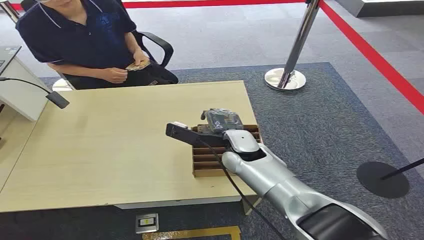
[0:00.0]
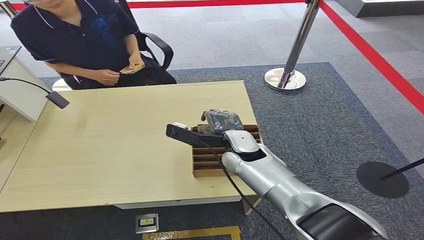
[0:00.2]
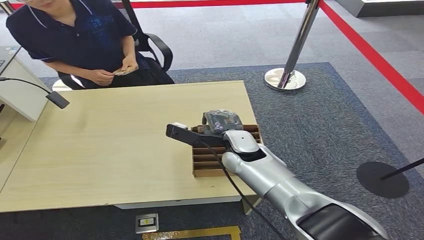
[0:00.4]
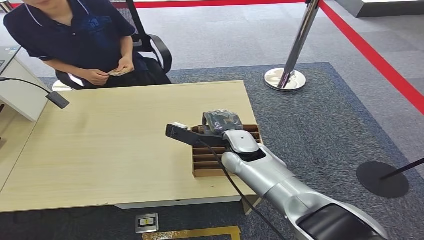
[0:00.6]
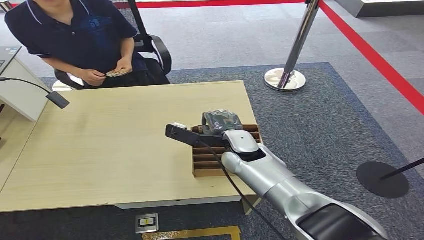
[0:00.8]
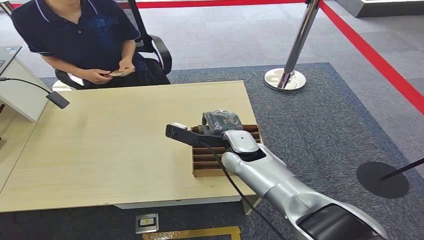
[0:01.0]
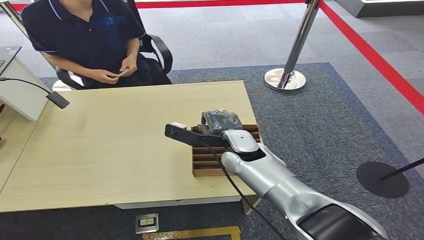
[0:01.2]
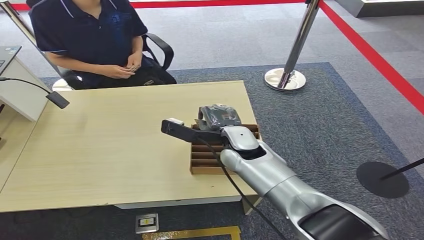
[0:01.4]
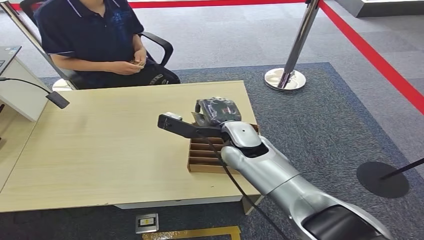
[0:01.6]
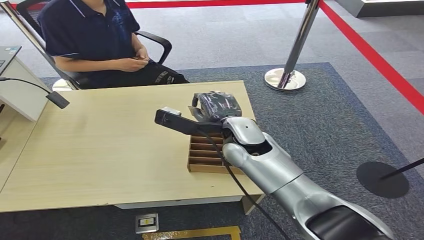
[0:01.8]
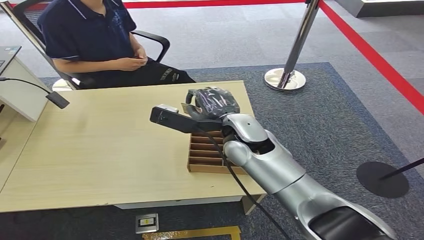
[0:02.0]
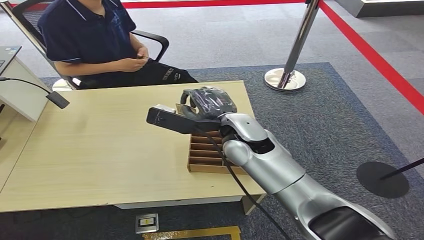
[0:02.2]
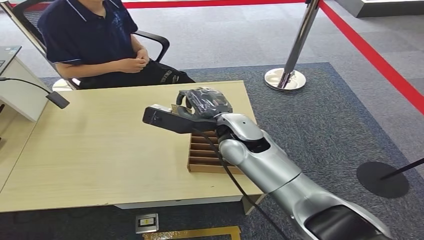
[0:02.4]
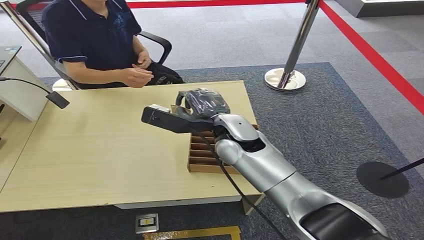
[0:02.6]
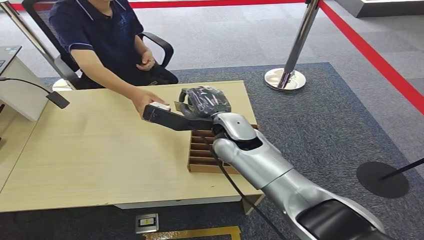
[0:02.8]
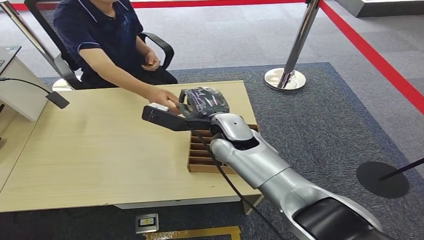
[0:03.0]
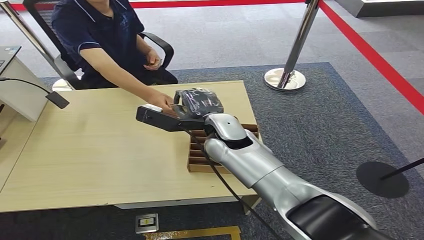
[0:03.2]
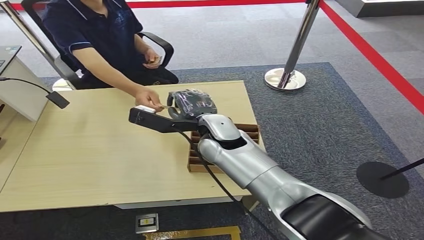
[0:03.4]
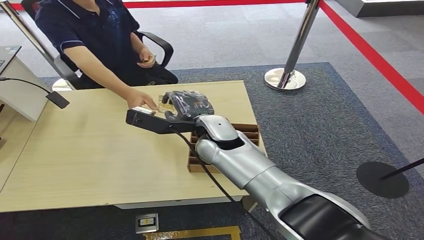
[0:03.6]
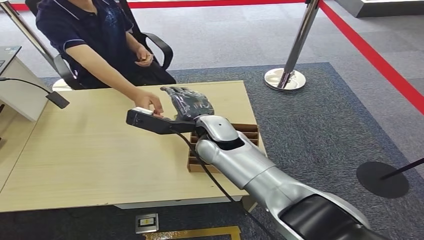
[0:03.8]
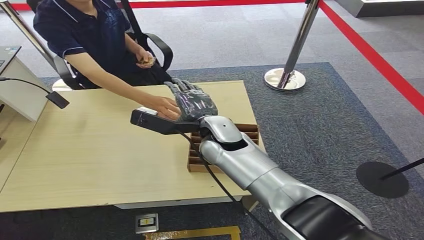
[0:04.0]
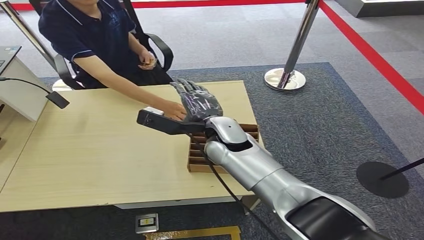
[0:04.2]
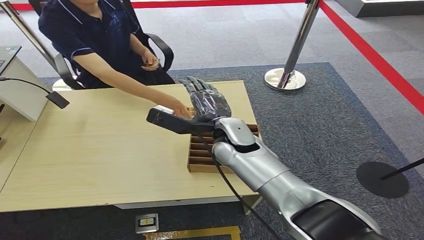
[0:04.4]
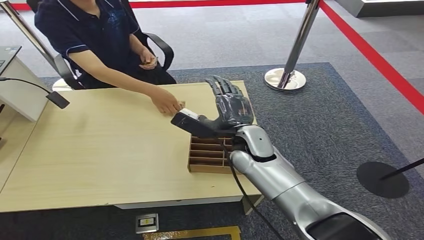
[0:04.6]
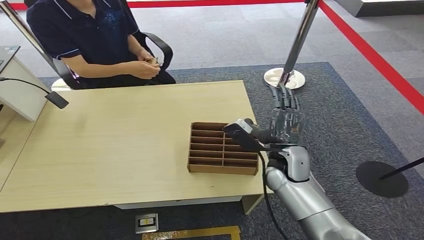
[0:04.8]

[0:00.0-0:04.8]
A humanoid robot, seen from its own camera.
Step, 0:00.0 to 0:02.2: Pick up the key card from the card box.
Step, 0:02.4 to 0:04.8: Hand the key card to the target.
0:01.6 to 0:03.2: The hands move only a little.
0:03.2 to 0:04.8: The right hand moves to the right and downward, about 15 cm.

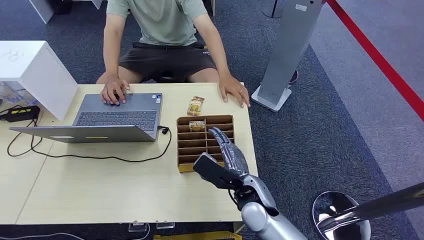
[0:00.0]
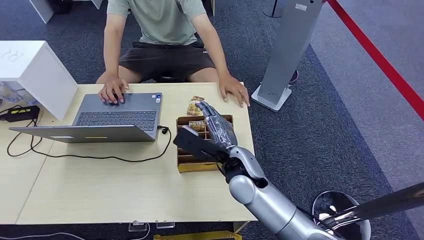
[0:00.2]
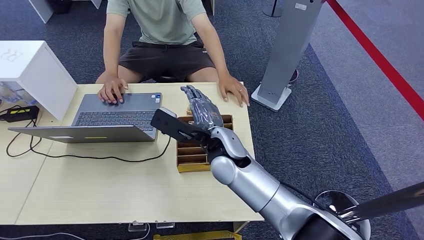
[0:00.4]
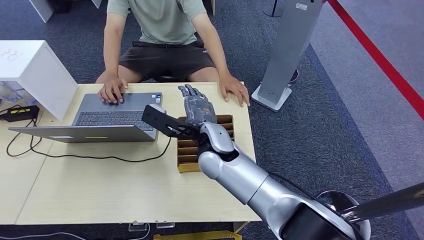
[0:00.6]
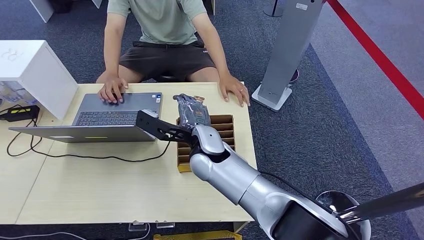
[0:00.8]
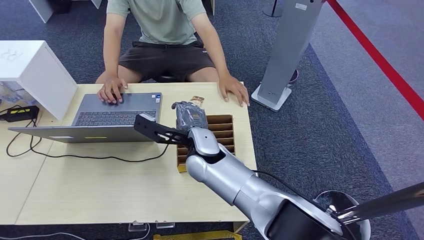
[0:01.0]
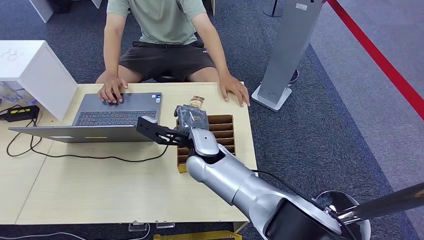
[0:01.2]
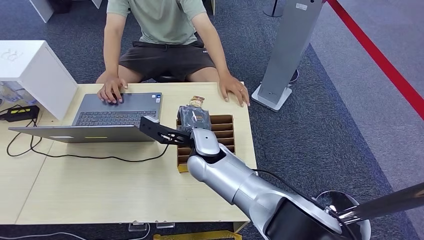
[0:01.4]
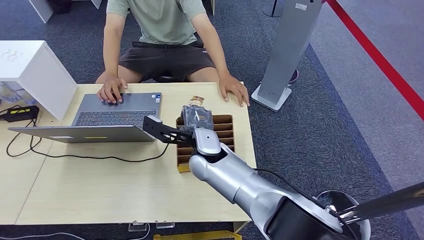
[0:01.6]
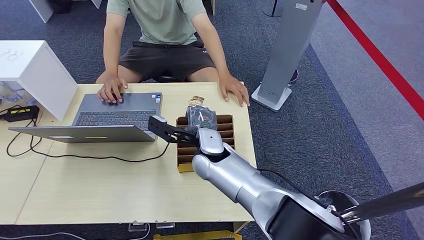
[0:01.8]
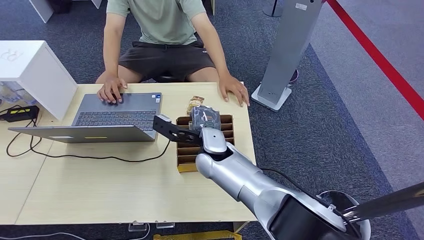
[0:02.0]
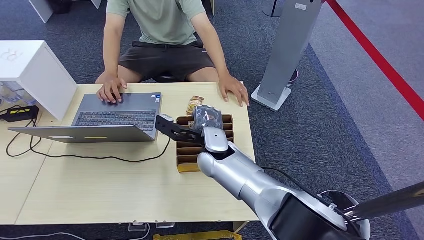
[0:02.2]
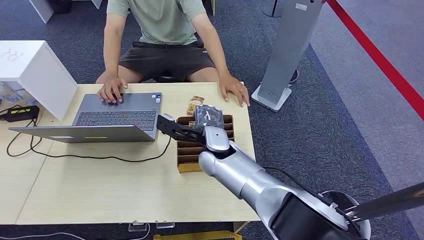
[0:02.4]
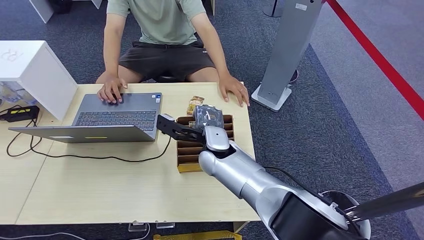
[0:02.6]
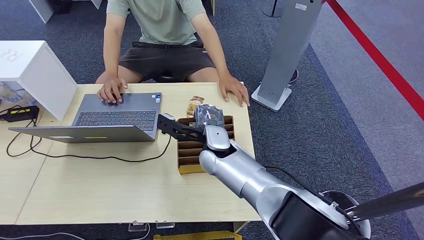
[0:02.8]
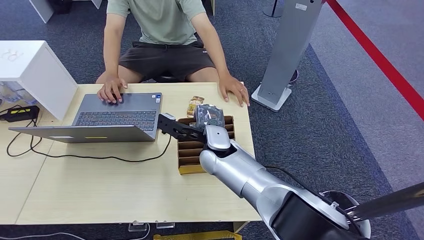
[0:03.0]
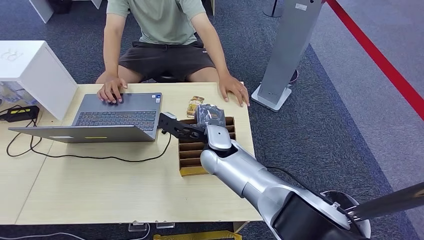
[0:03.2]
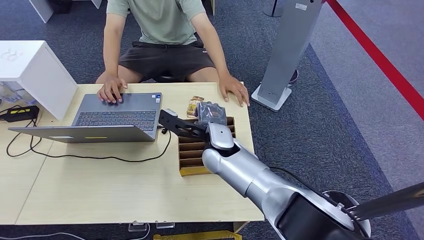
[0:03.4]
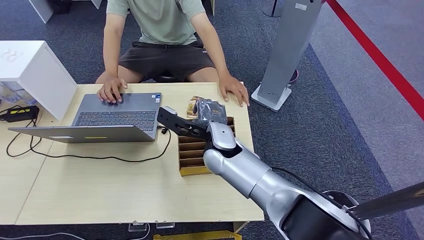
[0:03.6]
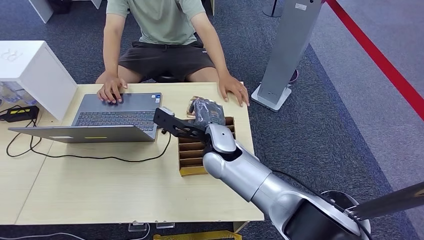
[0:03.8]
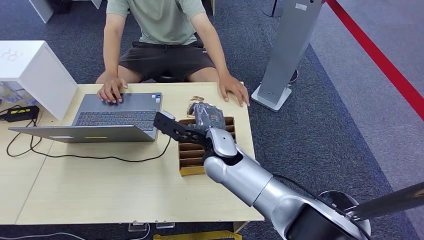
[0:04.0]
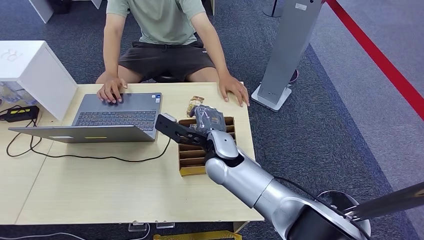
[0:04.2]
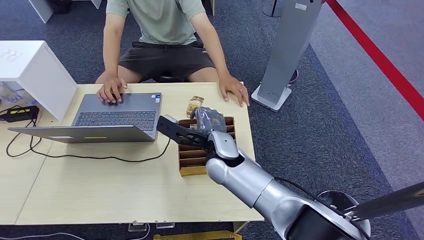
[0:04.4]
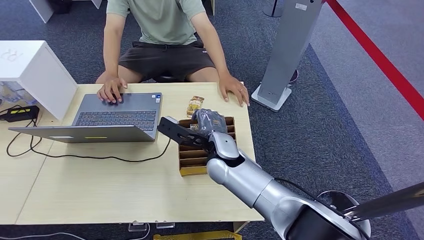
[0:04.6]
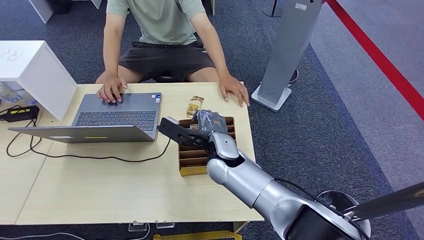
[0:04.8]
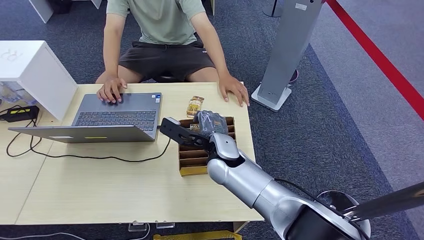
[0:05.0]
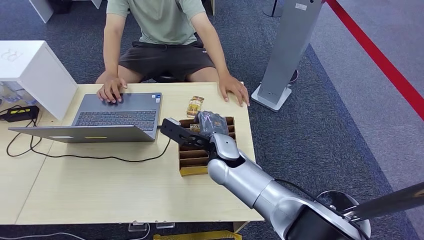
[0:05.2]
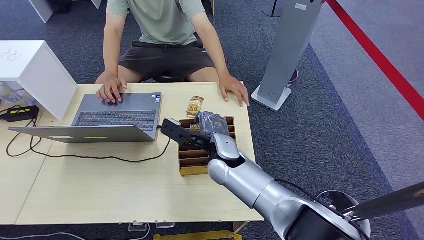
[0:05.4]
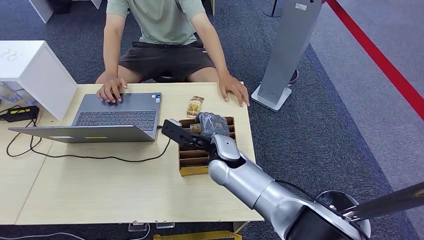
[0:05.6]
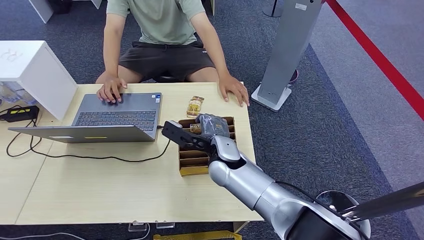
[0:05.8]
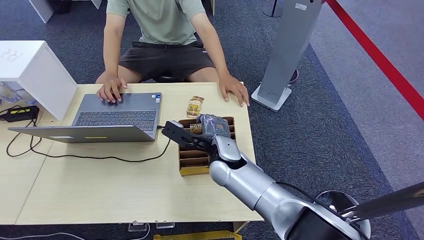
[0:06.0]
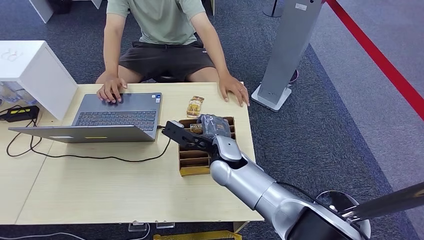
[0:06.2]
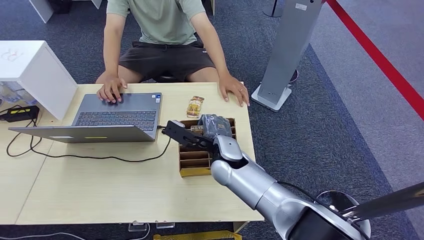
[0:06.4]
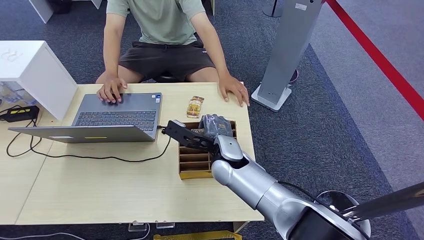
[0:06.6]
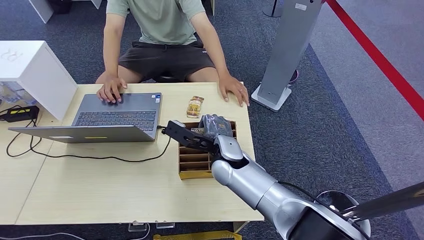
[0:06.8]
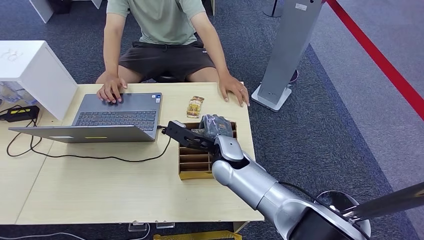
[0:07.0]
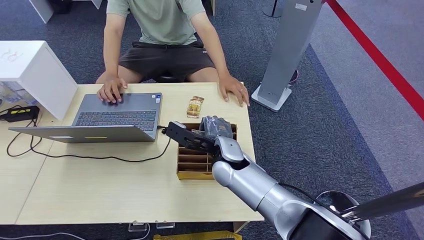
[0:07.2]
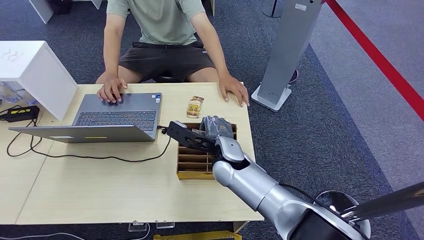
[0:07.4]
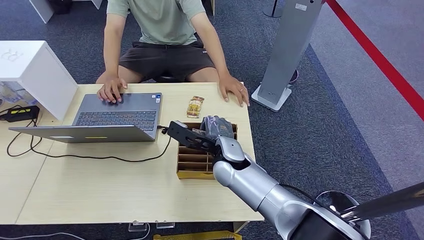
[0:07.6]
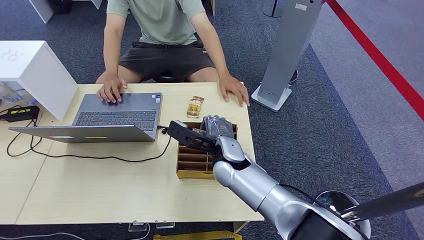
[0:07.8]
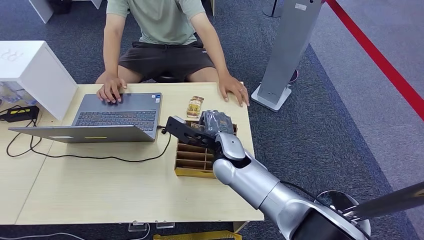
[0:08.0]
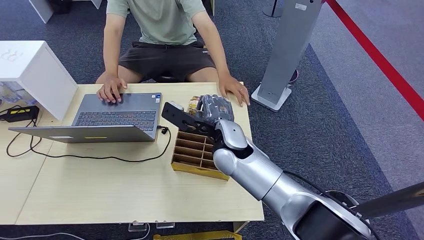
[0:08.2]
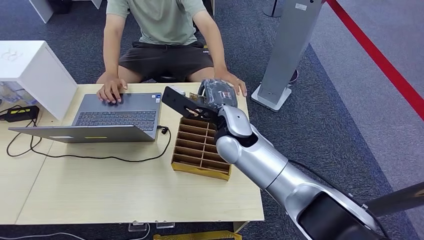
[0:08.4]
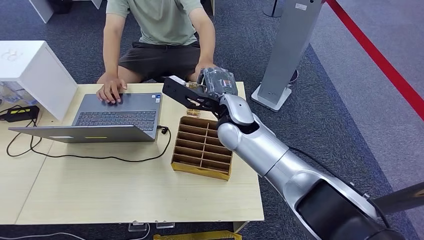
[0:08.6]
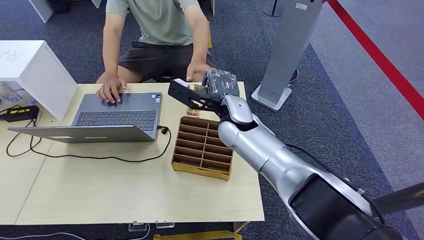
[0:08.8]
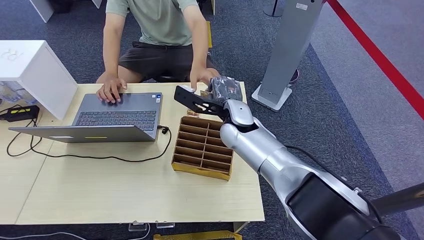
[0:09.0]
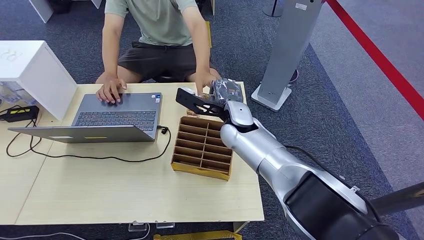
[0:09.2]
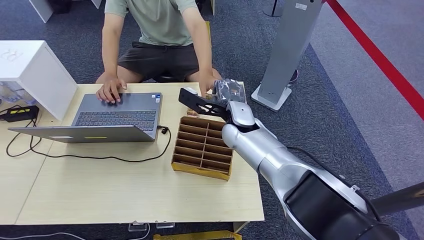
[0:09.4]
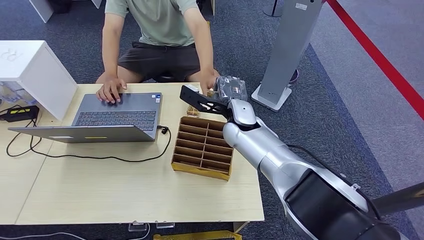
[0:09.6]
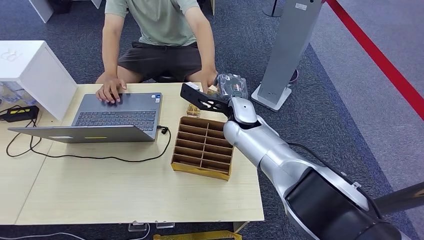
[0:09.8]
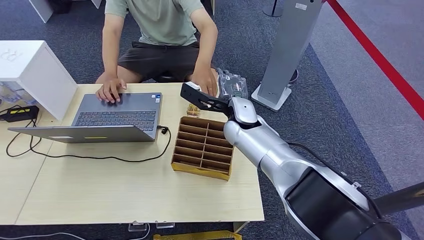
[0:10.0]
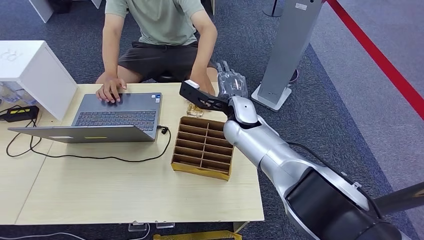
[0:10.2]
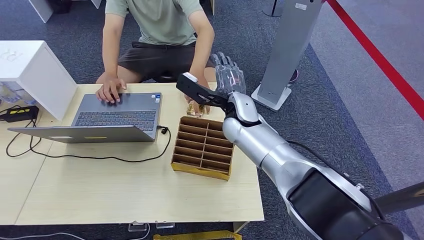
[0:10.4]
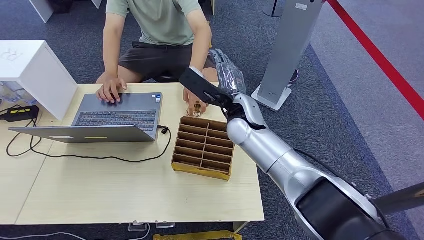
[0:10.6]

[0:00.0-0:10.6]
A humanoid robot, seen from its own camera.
Step, 0:00.0 to 0:06.6: Pick up the key card from the card box.
Step, 0:06.8 to 0:10.6: Hand the key card to the target.
0:01.6 to 0:06.0: The hands stay close to where they were, moving slightly.
0:06.0 to 0:07.6: Both hands stay put.
0:07.6 to 0:09.0: The right hand shifts about 10 cm forward and upward.

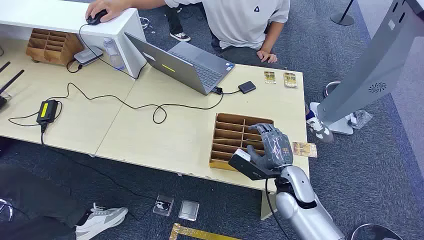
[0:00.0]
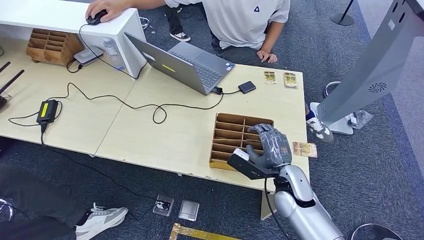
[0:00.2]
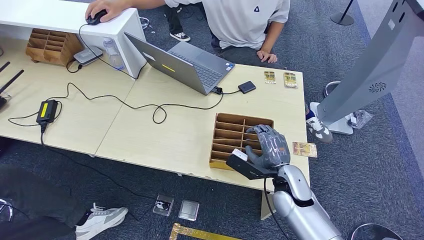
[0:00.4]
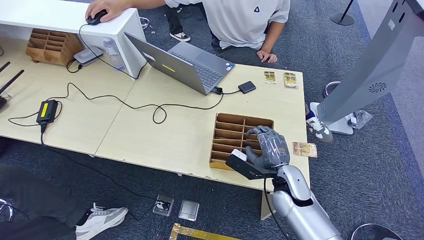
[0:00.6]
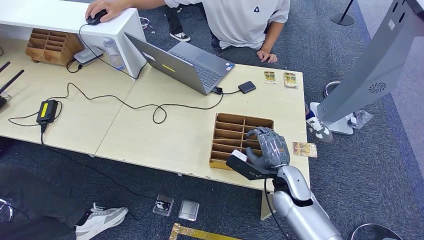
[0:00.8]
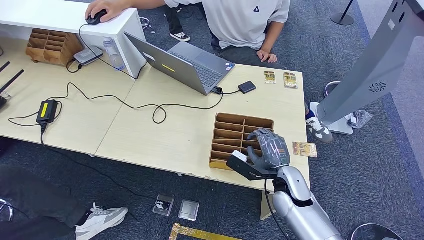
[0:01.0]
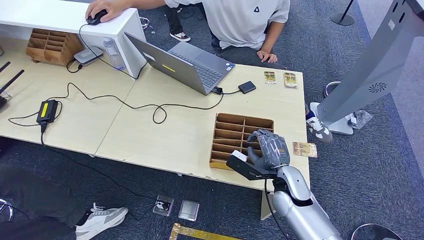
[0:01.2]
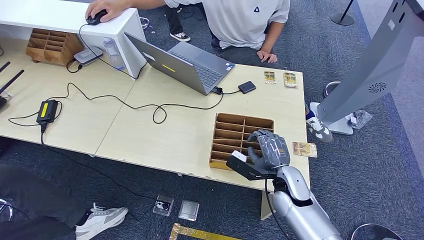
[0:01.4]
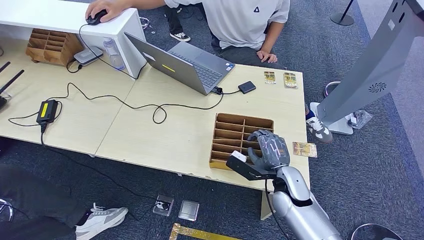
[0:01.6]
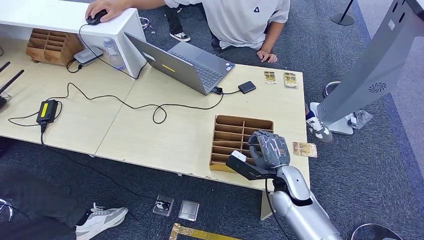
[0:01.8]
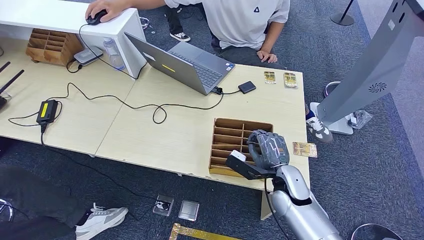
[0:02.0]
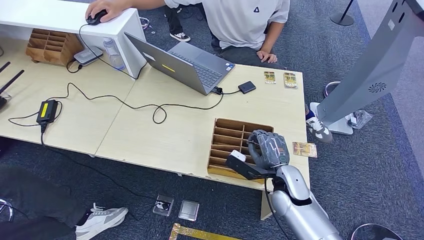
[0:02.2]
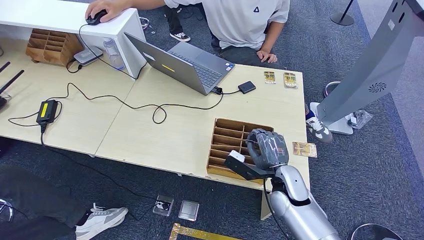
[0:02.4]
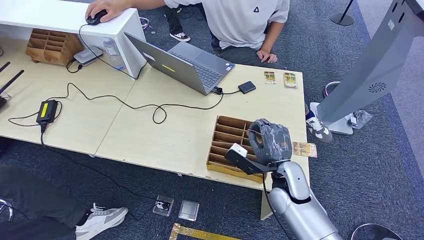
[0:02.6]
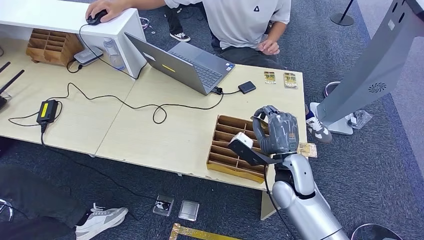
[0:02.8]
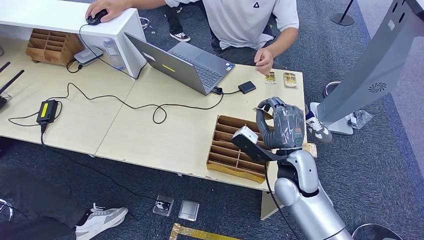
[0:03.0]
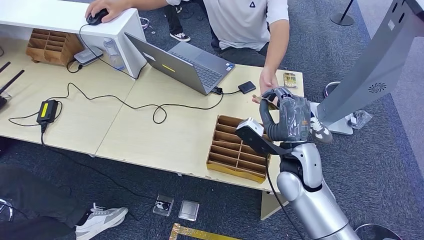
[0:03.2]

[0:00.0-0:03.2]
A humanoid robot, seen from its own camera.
Step, 0:00.0 to 0:02.4: Pick up the key card from the card box.
0:01.6 to 0:03.2: The right hand moves upward, roughly 10 cm.
